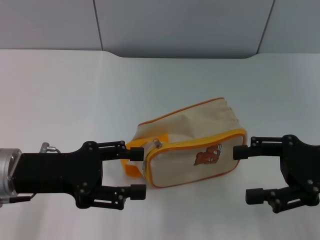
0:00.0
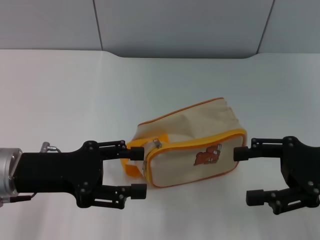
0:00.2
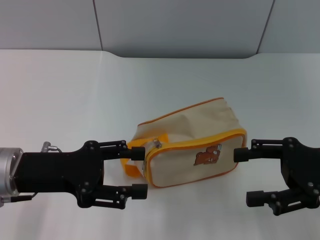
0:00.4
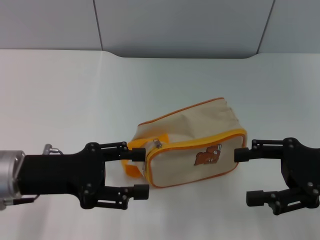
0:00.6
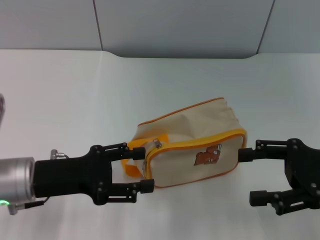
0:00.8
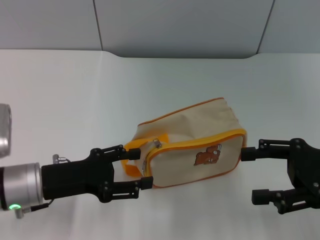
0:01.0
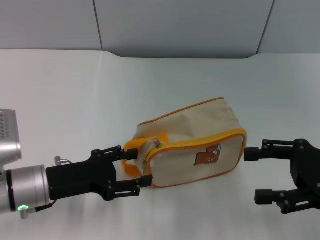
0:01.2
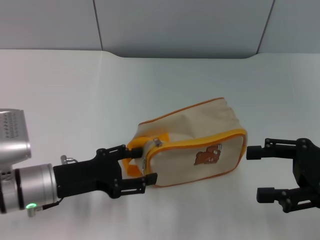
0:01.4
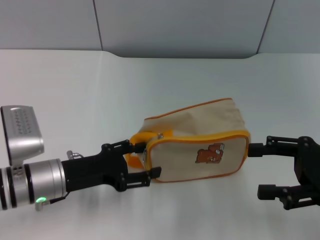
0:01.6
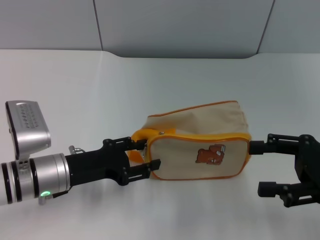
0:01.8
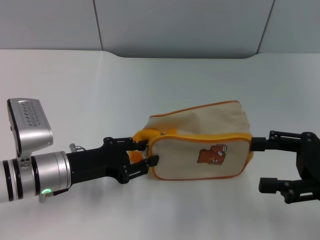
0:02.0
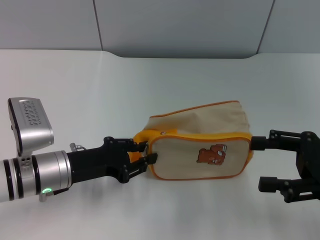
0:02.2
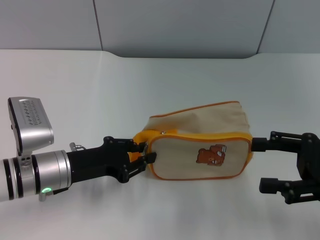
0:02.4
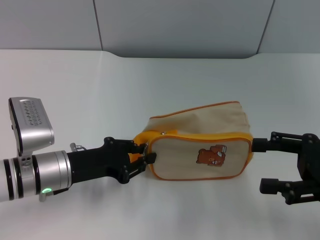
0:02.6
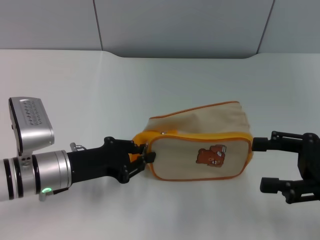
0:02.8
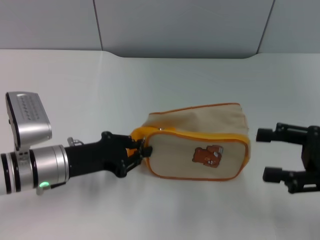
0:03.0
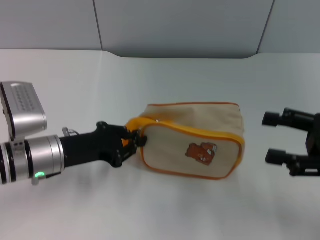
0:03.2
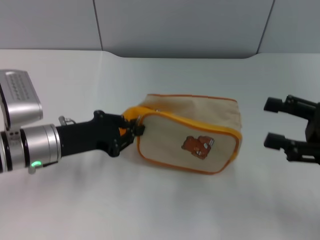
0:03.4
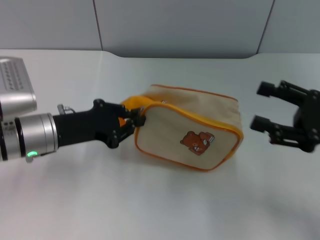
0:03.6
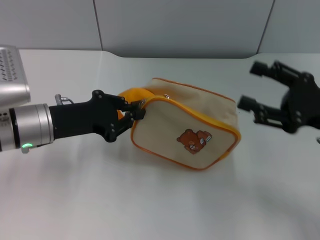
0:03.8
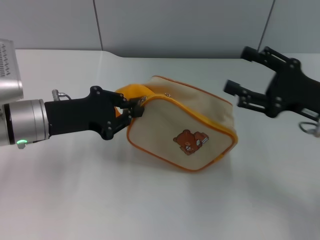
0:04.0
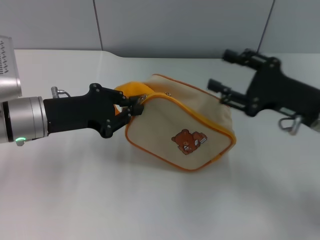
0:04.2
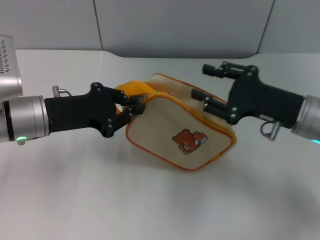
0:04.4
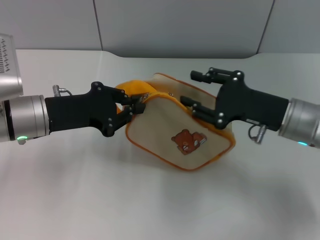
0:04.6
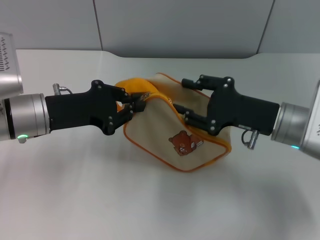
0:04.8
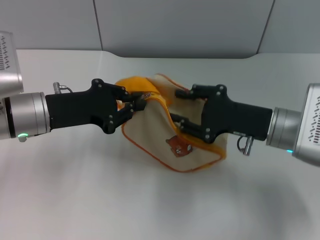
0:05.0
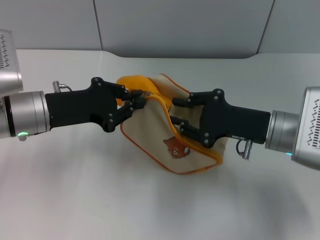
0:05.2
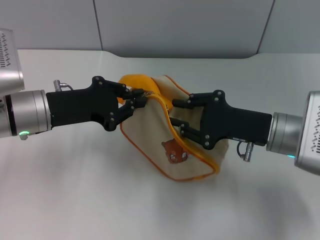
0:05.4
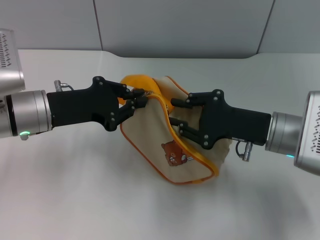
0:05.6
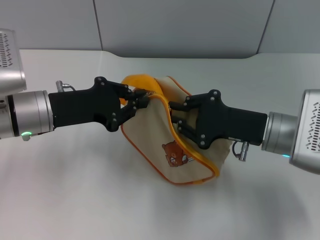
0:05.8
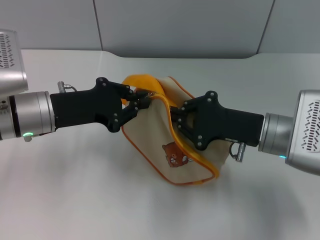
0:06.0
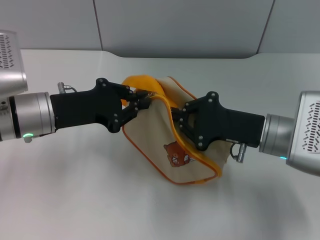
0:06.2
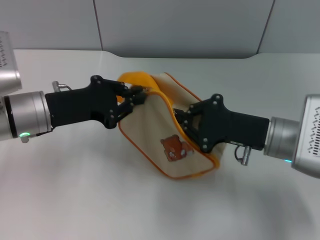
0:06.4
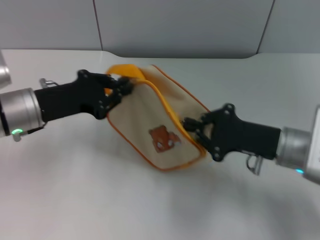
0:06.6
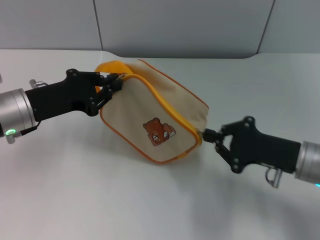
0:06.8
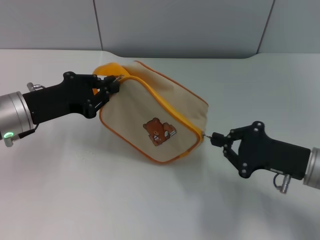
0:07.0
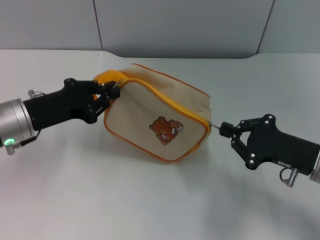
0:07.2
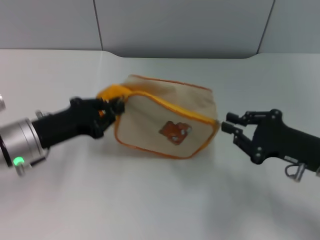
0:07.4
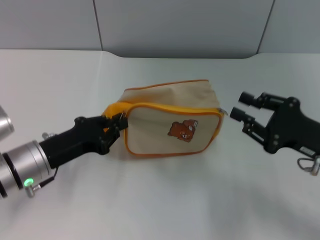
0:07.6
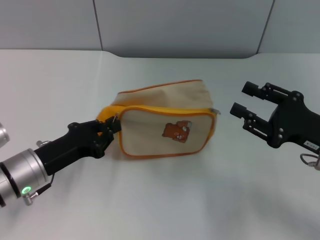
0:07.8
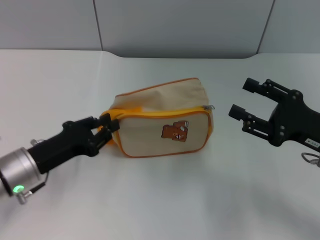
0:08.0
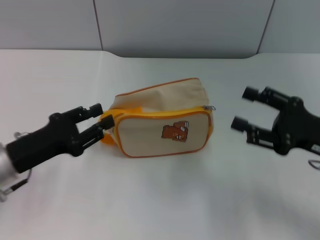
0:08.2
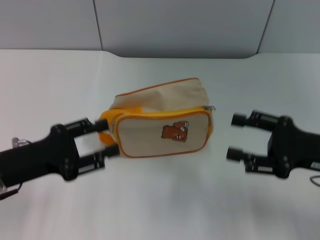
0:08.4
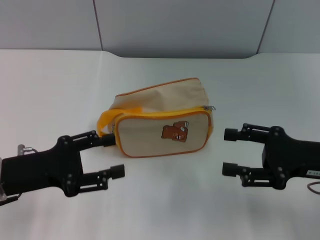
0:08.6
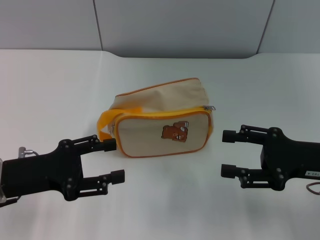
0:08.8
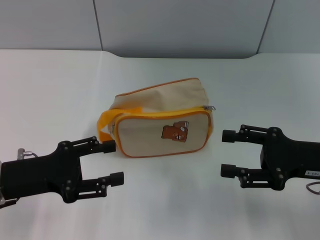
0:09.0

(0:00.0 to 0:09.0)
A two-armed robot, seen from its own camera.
Step, 0:00.0 - 0:03.8: Pick up the bag with left gripper.
Step, 0:04.0 - 0:07.4: Unzip the zipper of bag with right gripper.
Step, 0:07.8 - 0:08.2: Place the bag on the table with left gripper.
0:00.0 - 0:01.6: The left gripper heads downward, covering approximately 5 cm.
0:01.6 - 0:03.0: The left gripper closes its fingers.
0:03.0 - 0:04.4: The right gripper shifts some 10 cm to the left and forward. The left gripper is displaced upward by approximately 5 cm.
0:04.4 - 0:06.0: The right gripper closes.
0:06.0 - 0:07.6: The right gripper moves to the right and backward, roughly 10 cm, while the left gripper heads downward and backward, covering approximately 10 cm.
0:07.6 - 0:09.0: The left gripper shifts by about 5 cm, and opens its fingers. The right gripper opens.

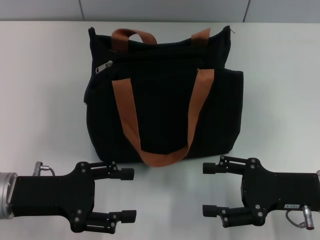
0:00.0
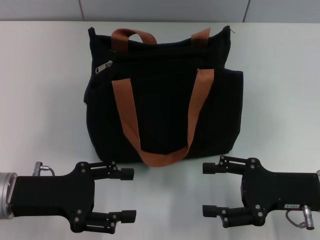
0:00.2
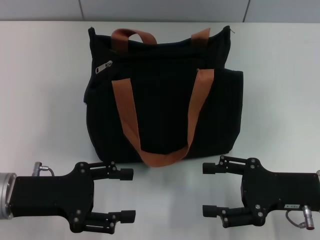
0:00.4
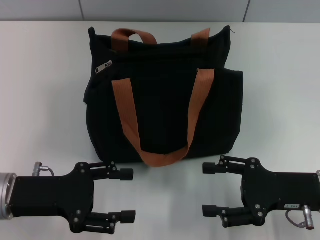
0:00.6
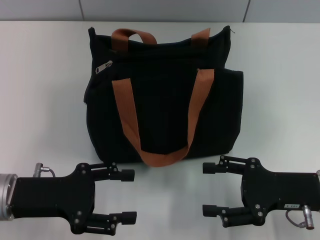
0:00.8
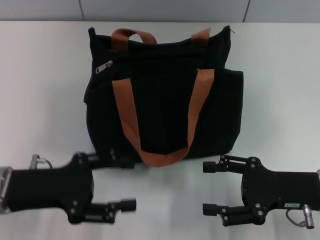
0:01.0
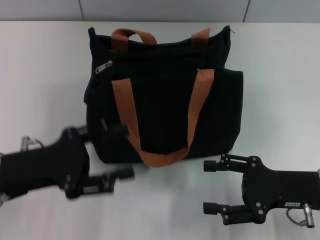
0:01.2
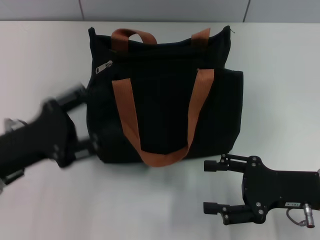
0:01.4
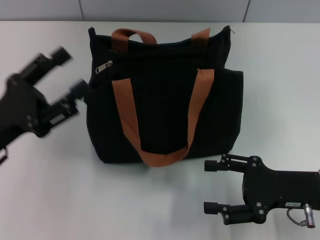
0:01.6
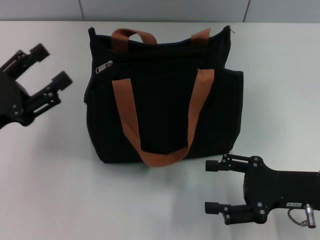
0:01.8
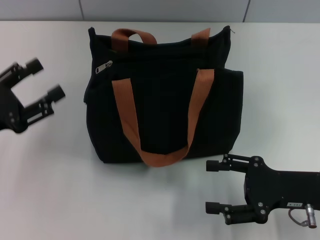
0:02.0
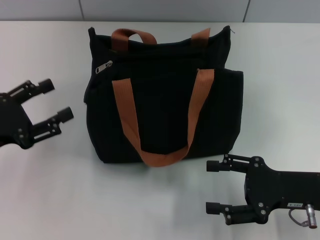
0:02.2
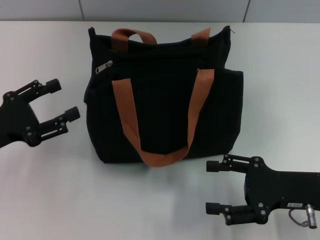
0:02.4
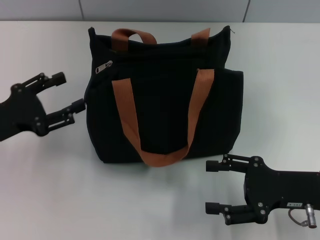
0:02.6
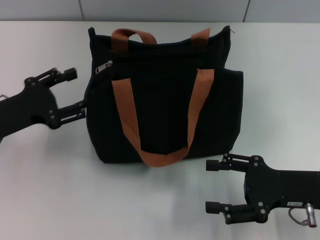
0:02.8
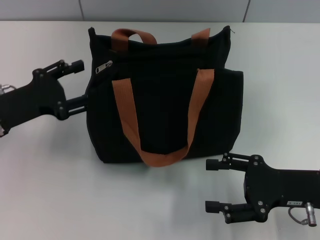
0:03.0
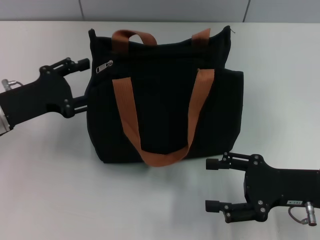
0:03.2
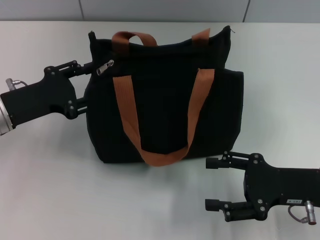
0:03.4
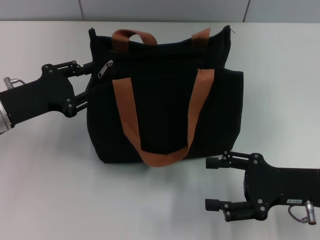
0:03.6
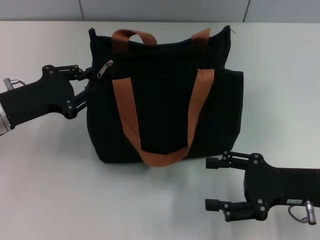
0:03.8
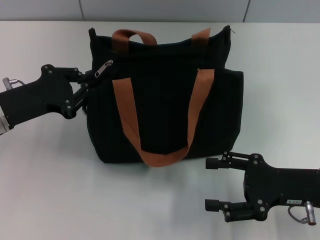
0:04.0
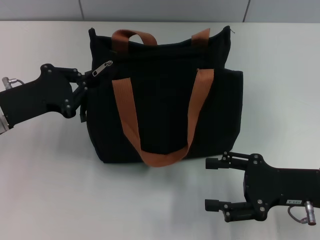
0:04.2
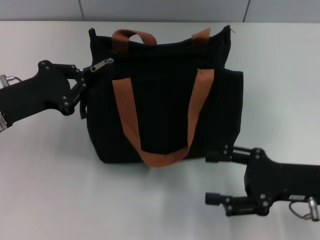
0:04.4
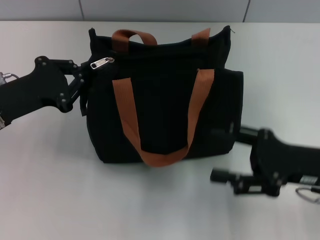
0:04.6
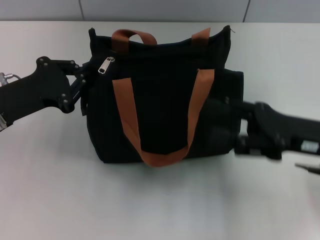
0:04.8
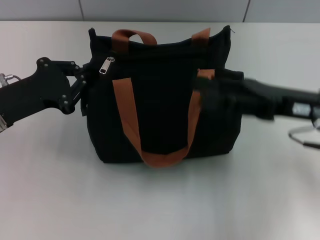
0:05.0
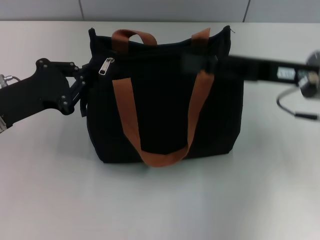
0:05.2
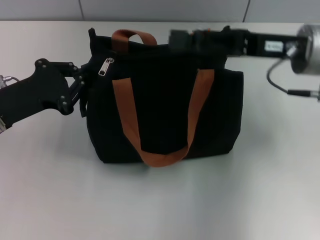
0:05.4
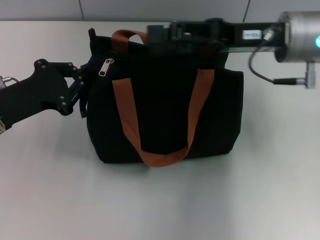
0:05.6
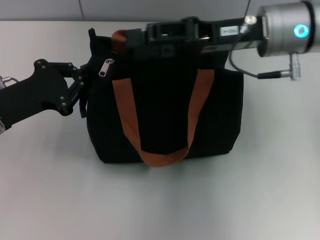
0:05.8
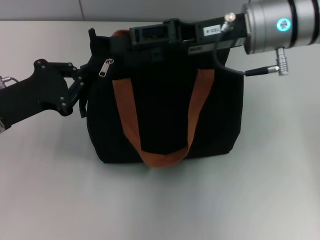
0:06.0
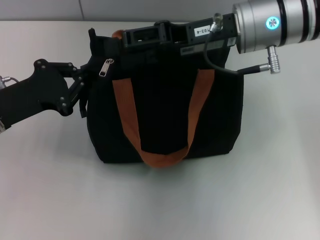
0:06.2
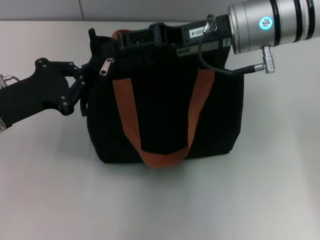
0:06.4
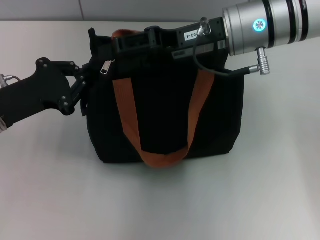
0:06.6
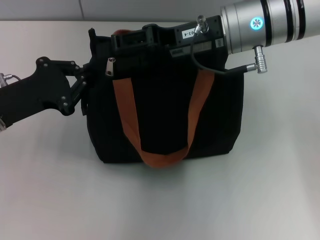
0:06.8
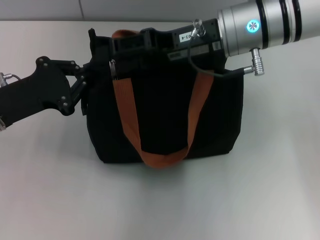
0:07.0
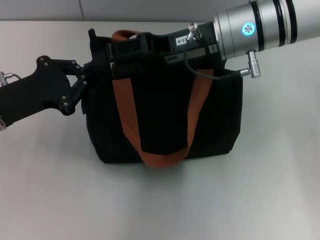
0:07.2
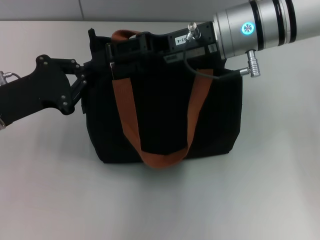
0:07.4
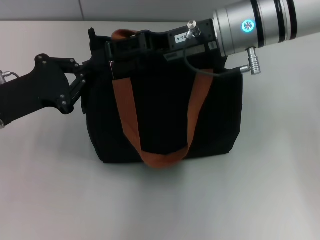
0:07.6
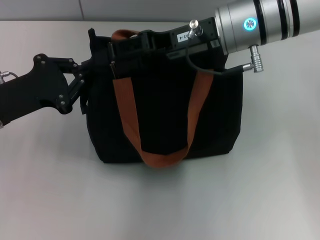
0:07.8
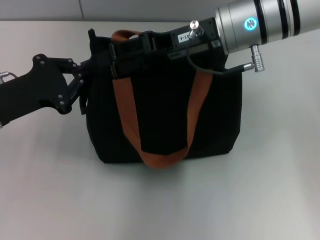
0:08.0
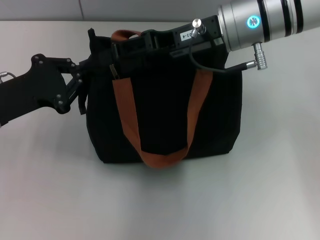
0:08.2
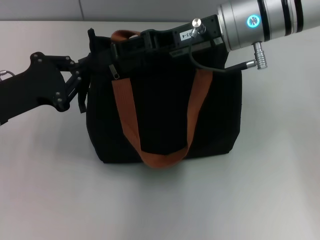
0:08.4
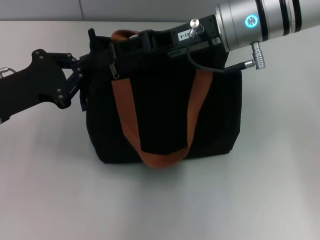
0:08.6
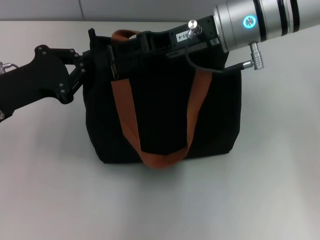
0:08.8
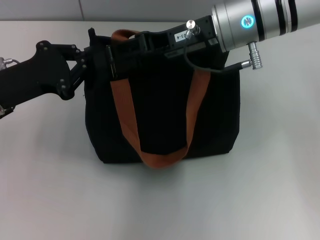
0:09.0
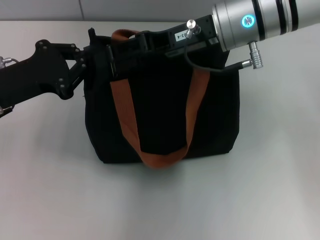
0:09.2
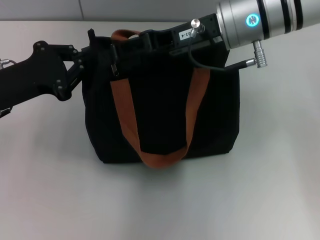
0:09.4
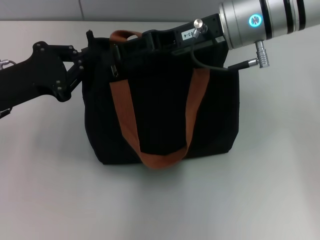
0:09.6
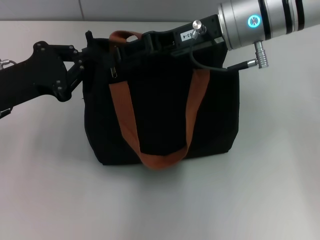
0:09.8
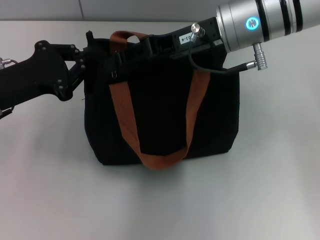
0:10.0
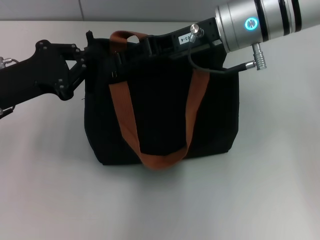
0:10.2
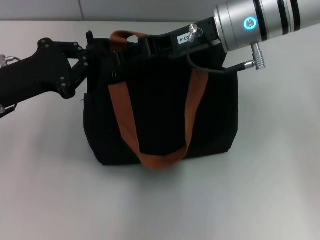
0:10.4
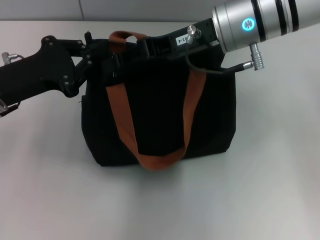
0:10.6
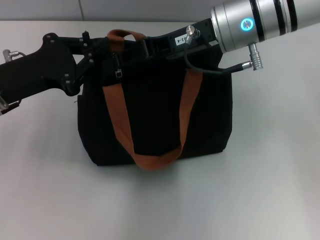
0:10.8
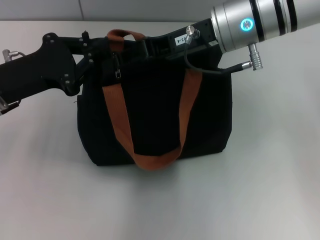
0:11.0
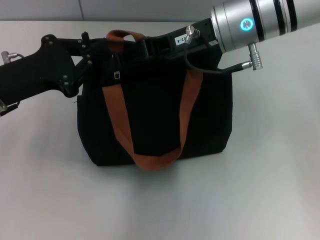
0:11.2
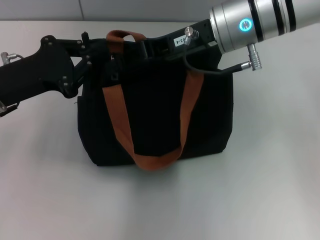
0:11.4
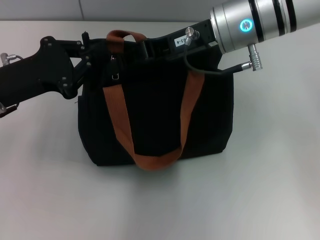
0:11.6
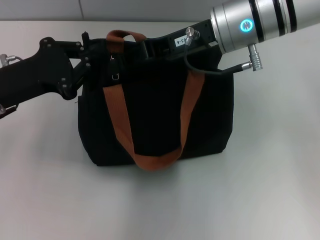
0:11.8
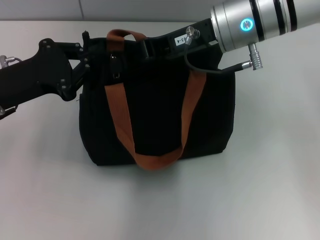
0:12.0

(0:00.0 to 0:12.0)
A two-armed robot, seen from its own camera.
0:01.6 - 0:03.0: The left gripper moves forward, roughly 5 cm.
0:03.0 - 0:04.4: The left gripper closes its fingers.
0:04.4 - 0:06.0: The right gripper goes roughly 25 cm forward, upward and to the left.
0:06.0 - 0:09.0: There are only small adjustments of the grippers.
0:09.0 - 0:10.4: The right gripper closes.
0:10.4 - 0:12.0: The right gripper closes.

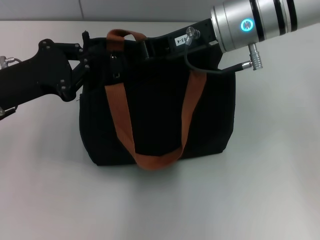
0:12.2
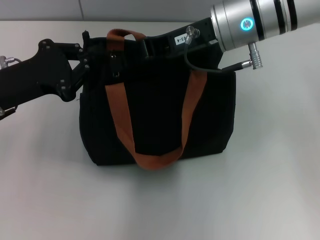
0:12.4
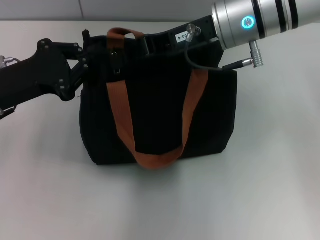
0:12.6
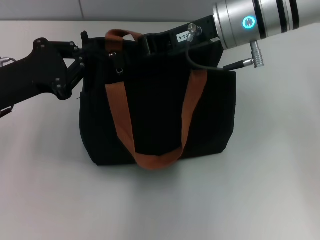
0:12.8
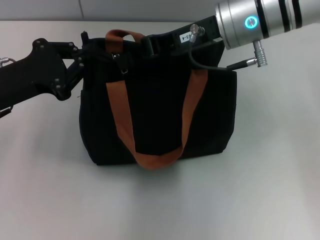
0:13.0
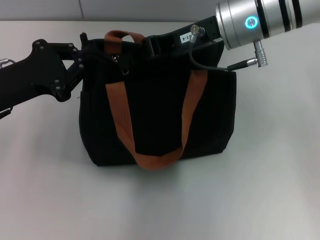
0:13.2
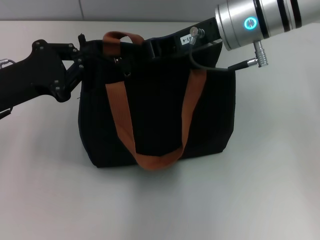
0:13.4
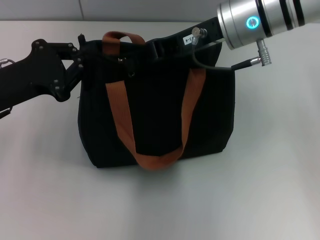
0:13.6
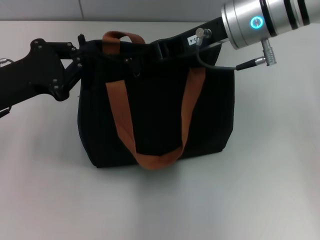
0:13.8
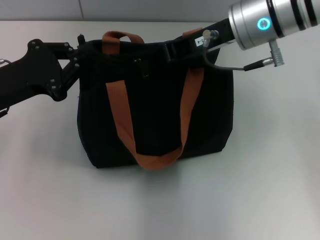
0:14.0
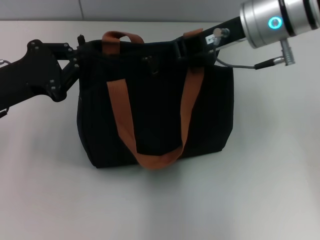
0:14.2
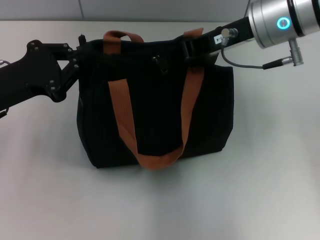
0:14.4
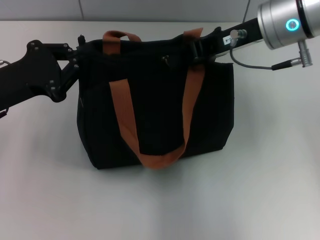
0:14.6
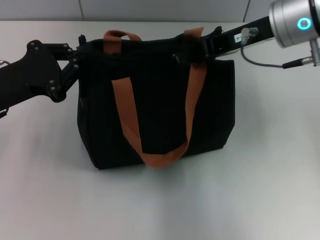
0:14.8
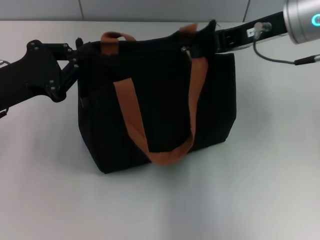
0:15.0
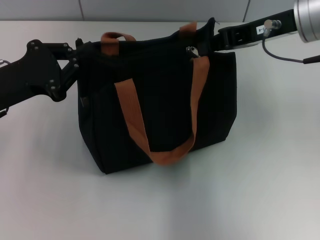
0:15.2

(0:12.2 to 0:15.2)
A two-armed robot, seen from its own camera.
0:12.2 - 0:13.8: The grippers move only a little.
0:13.8 - 0:15.2: The right gripper is displaced to the right by about 10 cm.
